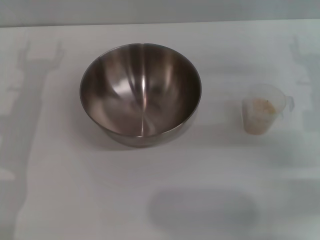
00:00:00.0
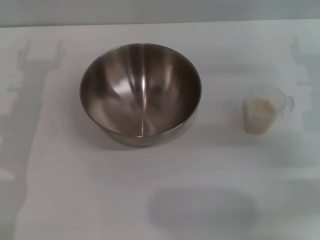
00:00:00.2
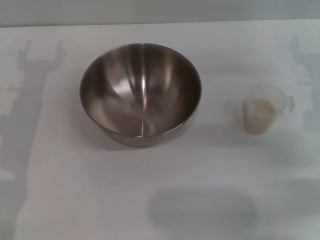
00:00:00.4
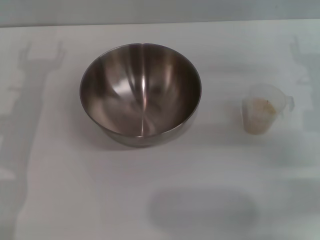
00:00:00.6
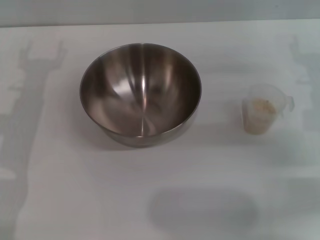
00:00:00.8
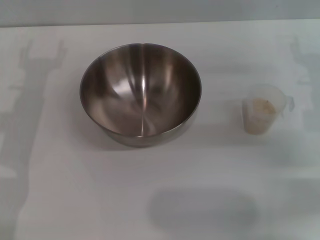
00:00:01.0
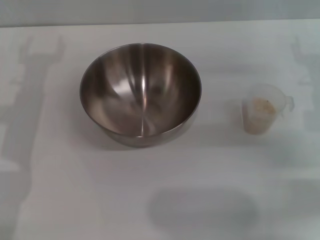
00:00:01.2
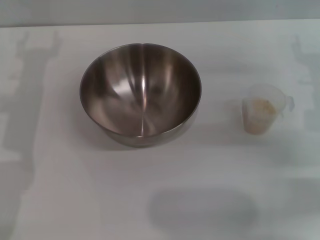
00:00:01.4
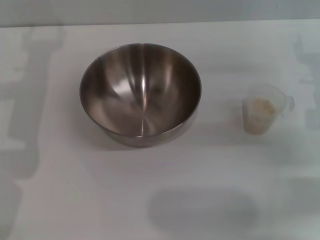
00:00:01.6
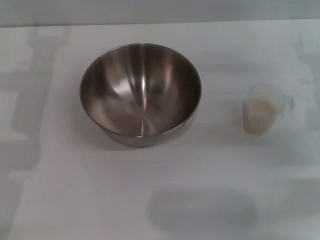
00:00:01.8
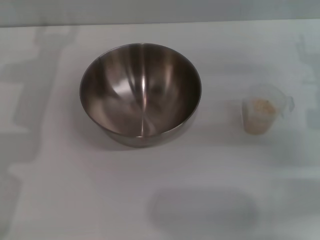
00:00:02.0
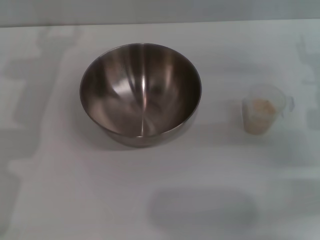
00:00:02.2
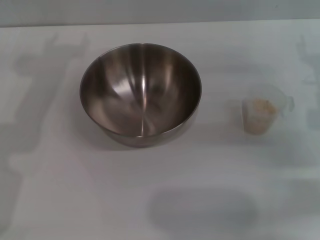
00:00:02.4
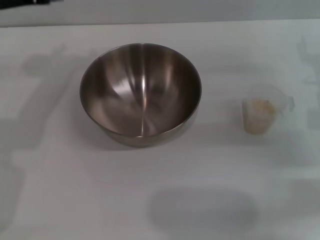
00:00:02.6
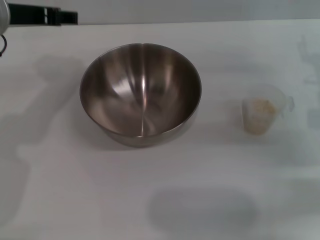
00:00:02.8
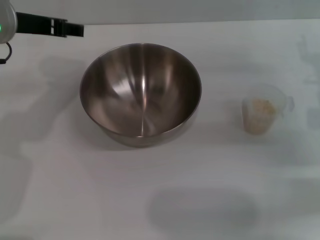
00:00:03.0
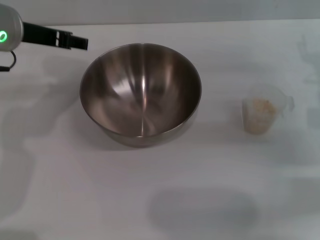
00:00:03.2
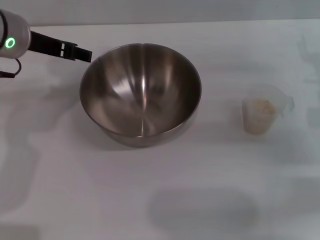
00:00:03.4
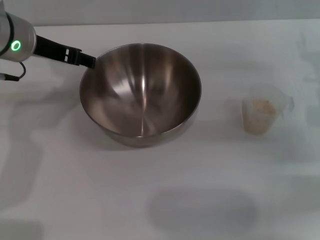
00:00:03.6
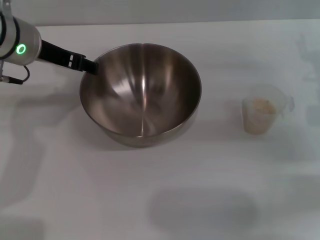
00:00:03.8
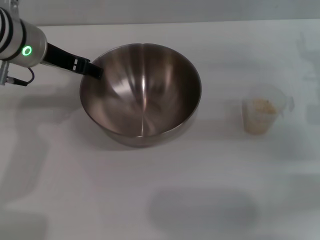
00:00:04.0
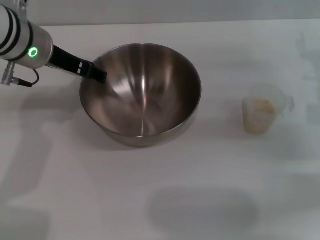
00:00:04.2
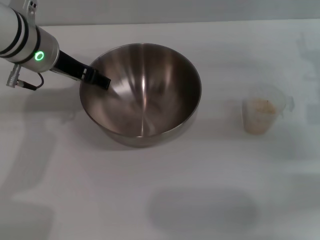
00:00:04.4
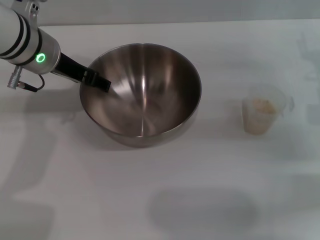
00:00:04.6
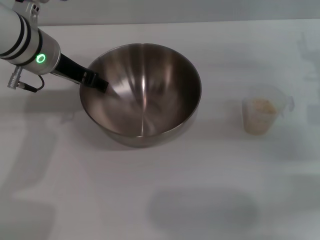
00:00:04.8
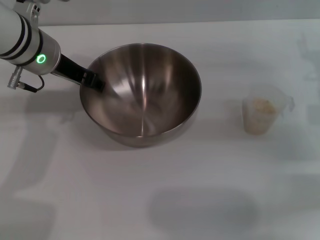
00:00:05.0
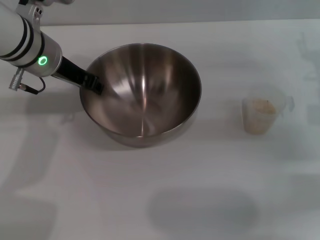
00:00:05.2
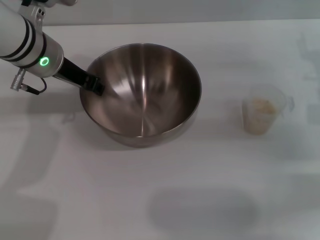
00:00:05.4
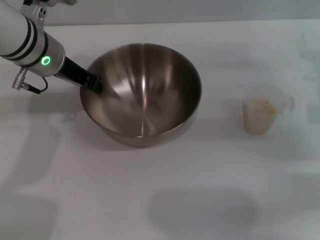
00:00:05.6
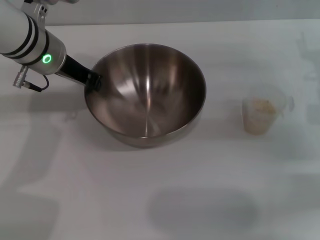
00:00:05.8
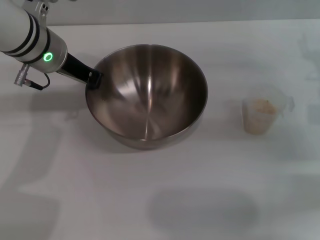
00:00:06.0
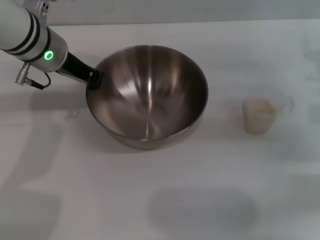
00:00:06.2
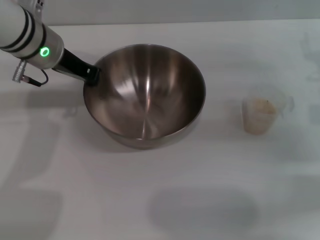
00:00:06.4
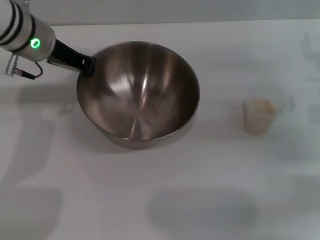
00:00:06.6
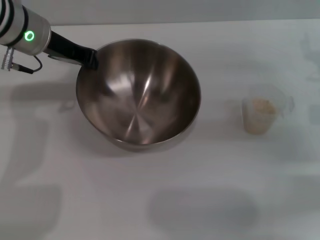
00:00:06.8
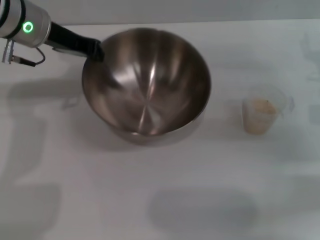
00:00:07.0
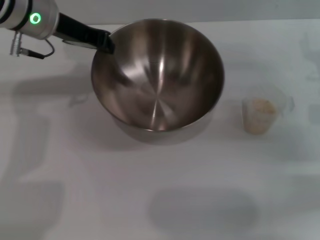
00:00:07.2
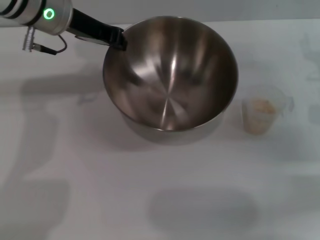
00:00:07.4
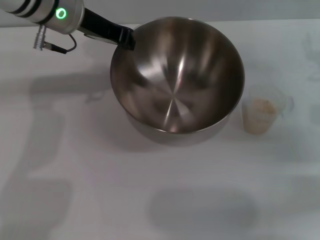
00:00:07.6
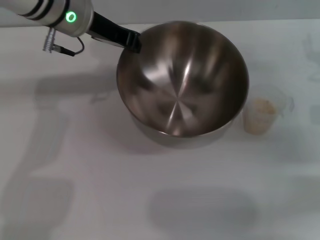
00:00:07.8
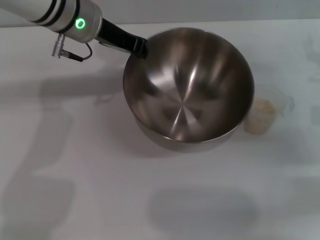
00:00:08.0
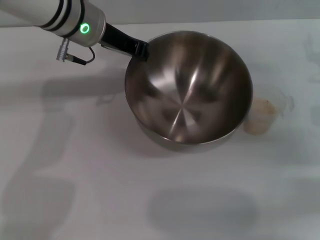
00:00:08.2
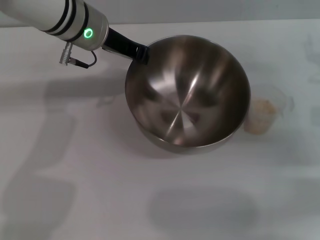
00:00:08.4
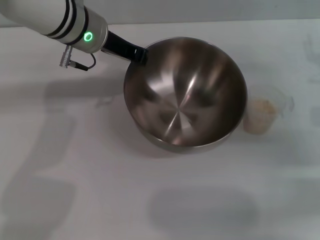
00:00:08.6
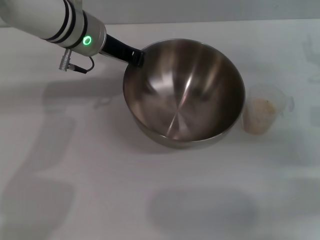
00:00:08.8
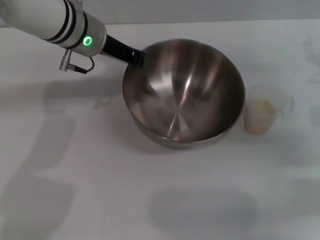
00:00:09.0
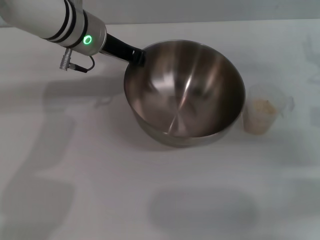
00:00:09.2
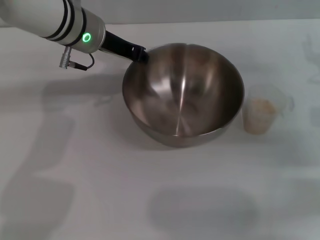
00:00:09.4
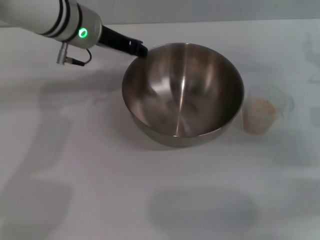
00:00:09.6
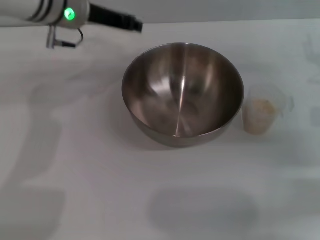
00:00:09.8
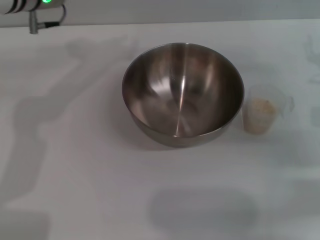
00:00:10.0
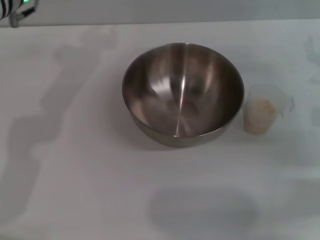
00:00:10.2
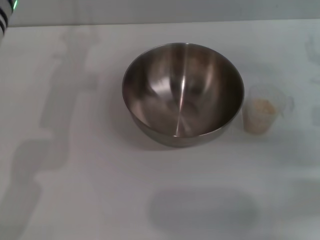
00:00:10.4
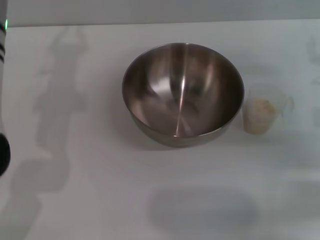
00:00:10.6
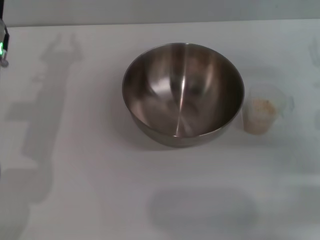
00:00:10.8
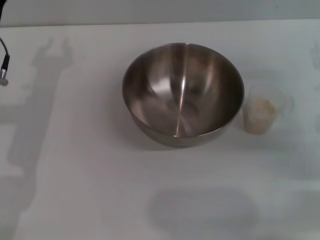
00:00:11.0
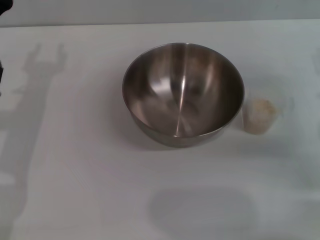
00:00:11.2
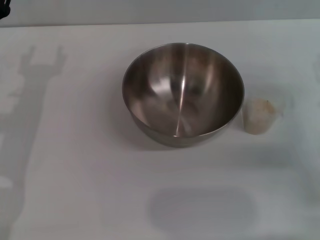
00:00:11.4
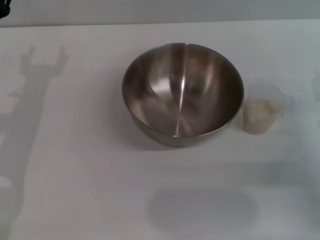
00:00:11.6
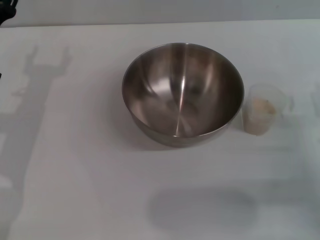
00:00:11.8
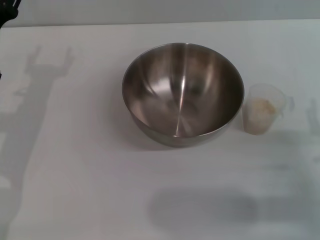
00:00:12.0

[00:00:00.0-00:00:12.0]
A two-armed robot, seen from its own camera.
Task of the whole recording: Place the bowl in the middle of the table with one hand and pour the rice from the grain cup into it with the other hand.
Step, 00:00:00.0 to 00:00:07.0: Pick up the bowl with the left gripper.
Step, 00:00:07.2 to 00:00:09.6: Place the bowl in the center of view with the left gripper.
00:00:01.6 to 00:00:03.0: The left gripper moves upward, roughly 5 cm.
00:00:03.0 to 00:00:04.4: The left gripper shifts by approximately 5 cm.
00:00:04.4 to 00:00:06.0: The left gripper closes up.
00:00:07.6 to 00:00:09.0: The grippers make only small movements.
00:00:09.0 to 00:00:10.4: The left gripper shifts approximately 5 cm to the left.
00:00:10.4 to 00:00:12.0: The left gripper shifts some 15 cm downward, to the left and backward, and opens its fingers, while the right gripper goes roughly 15 cm backward and downward.

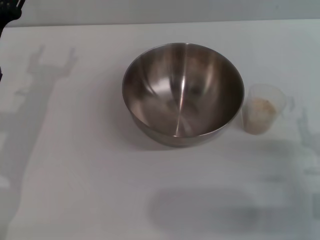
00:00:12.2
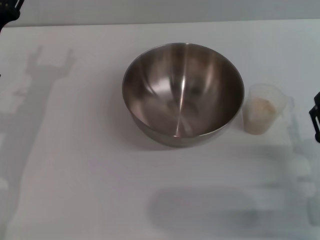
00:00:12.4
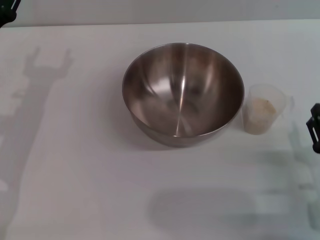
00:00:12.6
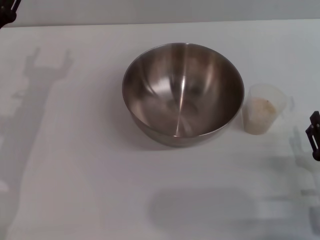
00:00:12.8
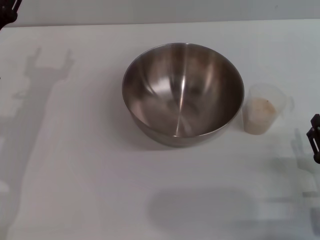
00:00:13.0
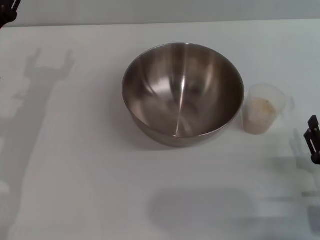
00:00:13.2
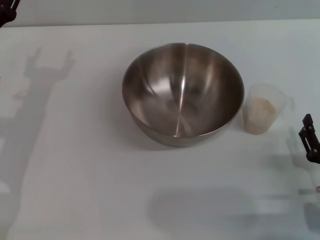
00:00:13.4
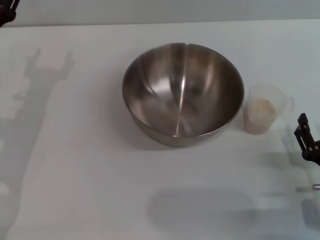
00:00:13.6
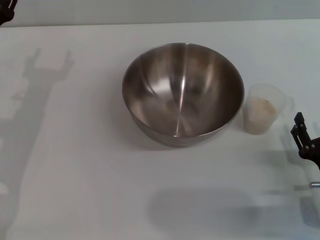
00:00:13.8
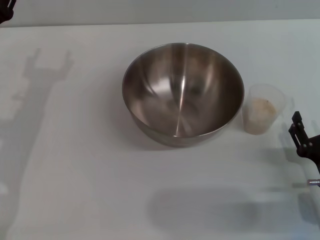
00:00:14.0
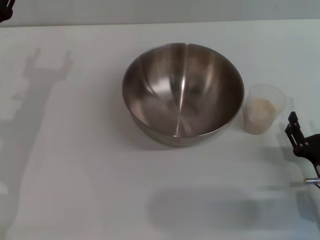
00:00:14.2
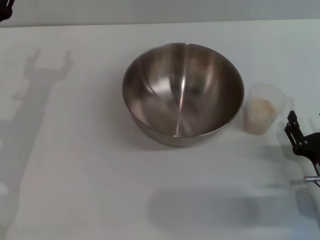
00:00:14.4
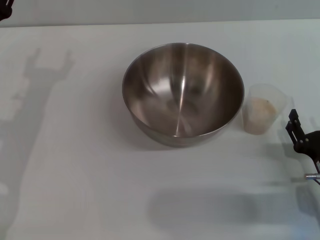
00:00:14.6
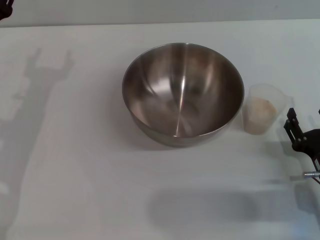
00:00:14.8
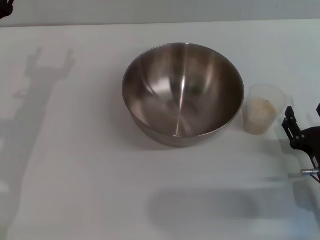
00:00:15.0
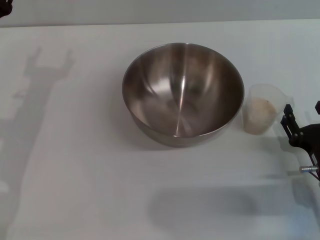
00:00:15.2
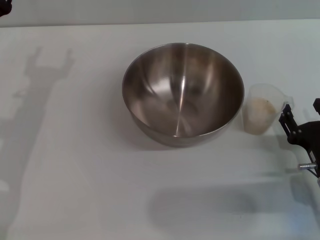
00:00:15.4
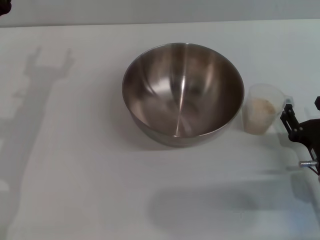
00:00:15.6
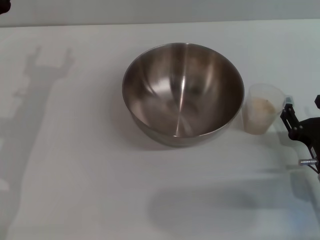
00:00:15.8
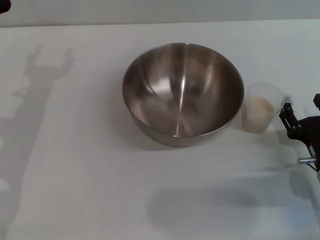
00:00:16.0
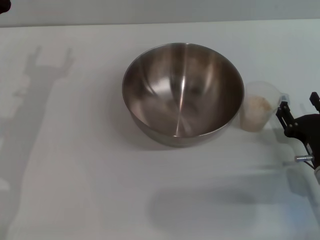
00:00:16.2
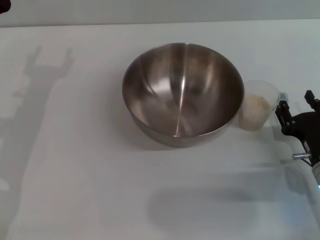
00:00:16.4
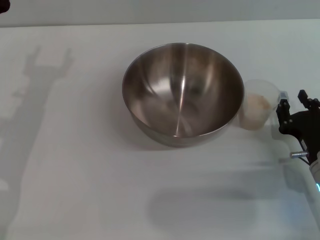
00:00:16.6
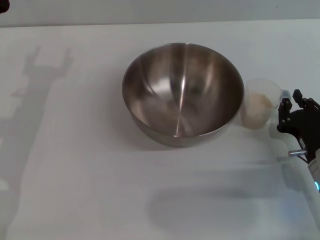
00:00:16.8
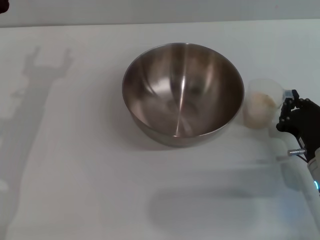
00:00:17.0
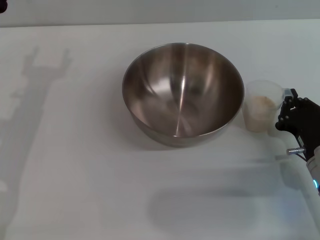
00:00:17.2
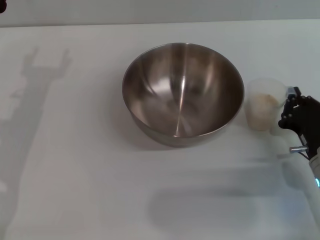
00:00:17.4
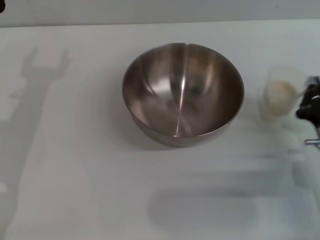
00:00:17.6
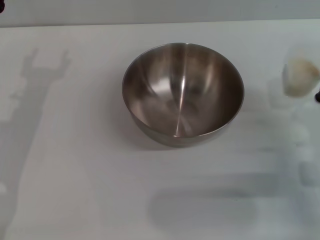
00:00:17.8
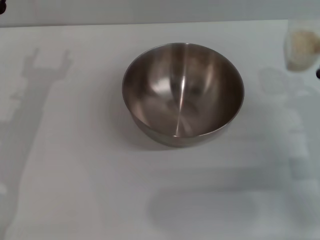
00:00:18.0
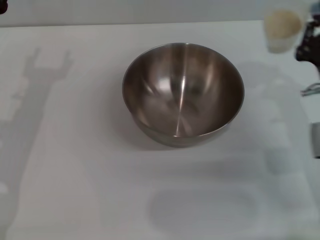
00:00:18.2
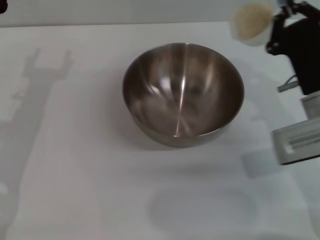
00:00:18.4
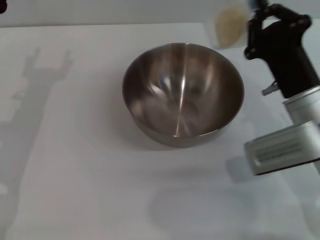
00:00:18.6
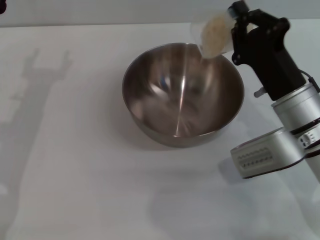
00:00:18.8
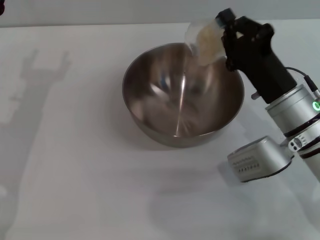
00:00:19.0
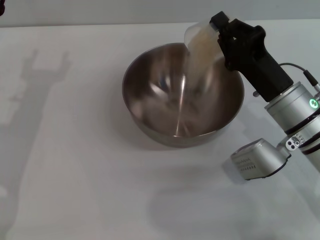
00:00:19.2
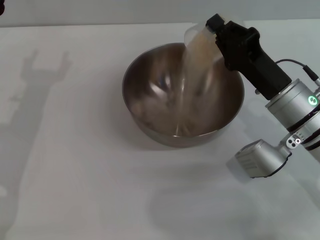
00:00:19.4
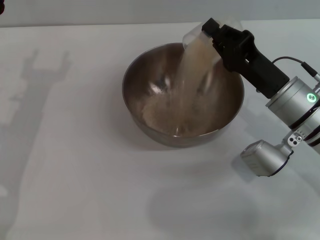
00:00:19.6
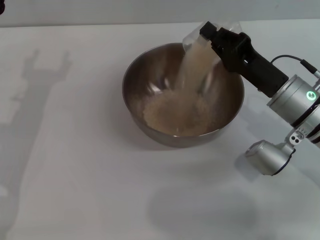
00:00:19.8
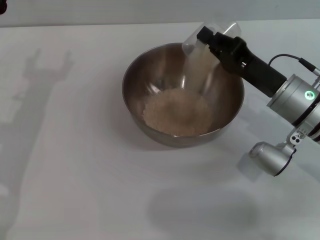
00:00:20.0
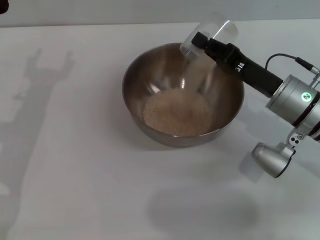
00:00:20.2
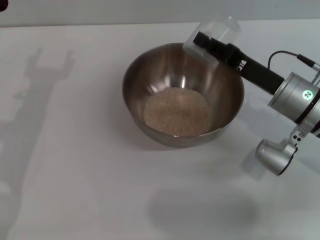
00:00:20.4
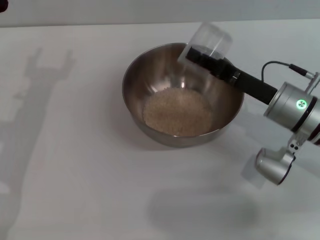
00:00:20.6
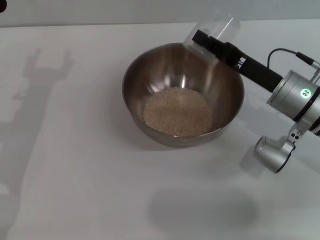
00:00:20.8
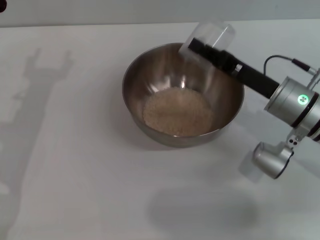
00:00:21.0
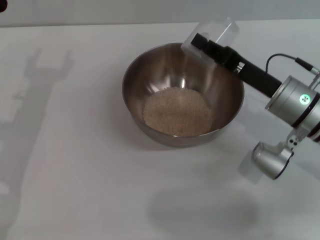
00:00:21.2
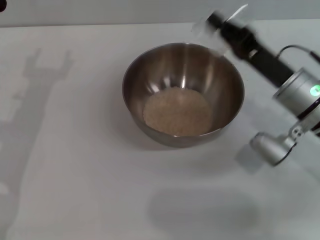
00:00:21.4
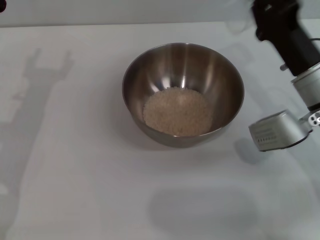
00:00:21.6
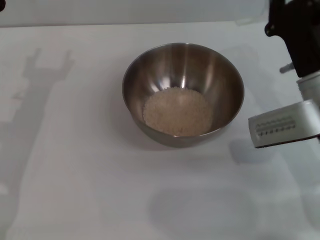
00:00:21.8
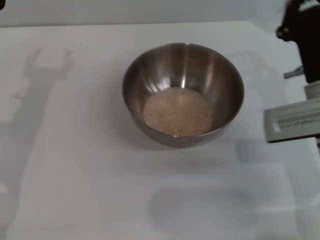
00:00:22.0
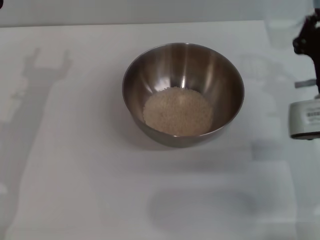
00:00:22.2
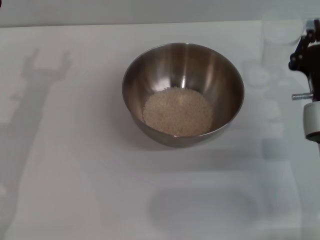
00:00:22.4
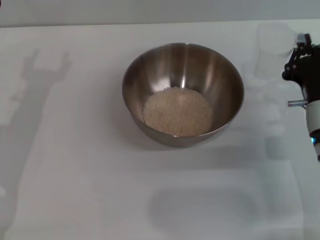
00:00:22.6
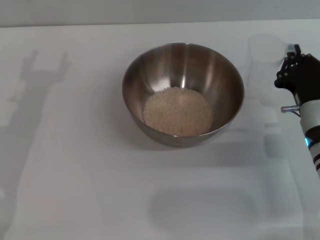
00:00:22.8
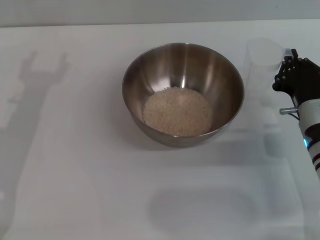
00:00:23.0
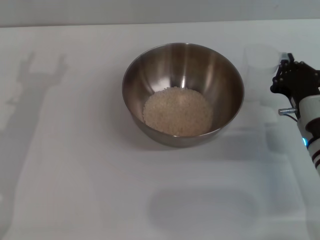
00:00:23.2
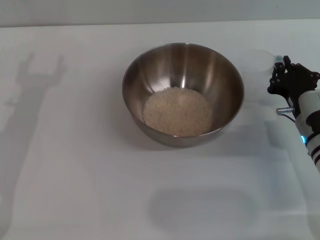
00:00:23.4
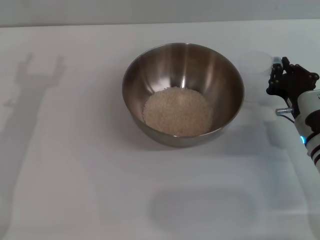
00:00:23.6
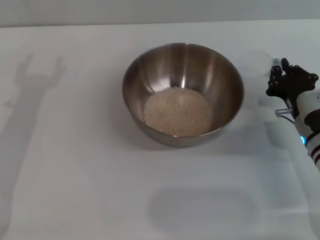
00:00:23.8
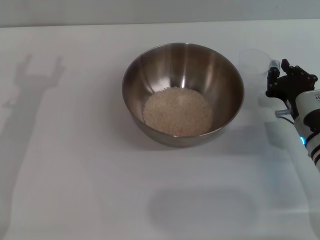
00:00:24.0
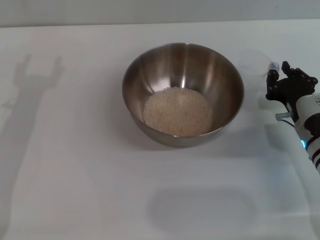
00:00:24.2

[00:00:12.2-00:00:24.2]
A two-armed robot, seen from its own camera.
Task of the whole recording: Place the bowl in the middle of the table with one hand and pour the rice from the grain cup into it with the other hand.
Step, 00:00:12.2 to 00:00:17.8: Pick up the cup with rice in it with the right gripper.
Step, 00:00:18.2 to 00:00:21.2: Pour the rice from the cup into the bowl with the right gripper.
00:00:12.2 to 00:00:16.6: The grippers stay close to where they were, moving slightly.
00:00:16.6 to 00:00:18.2: The right gripper moves upward and forward, roughly 10 cm, and closes its fingers.
00:00:18.2 to 00:00:19.8: The right gripper ends up some 5 cm from where it was.
00:00:19.8 to 00:00:21.2: The grippers move only a little.
00:00:21.2 to 00:00:22.6: The right gripper moves some 5 cm.
00:00:22.6 to 00:00:24.2: The grippers stay close to where they were, moving slightly.
